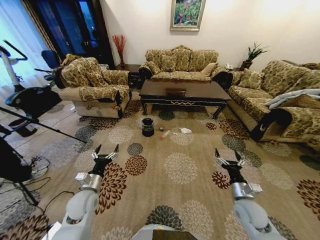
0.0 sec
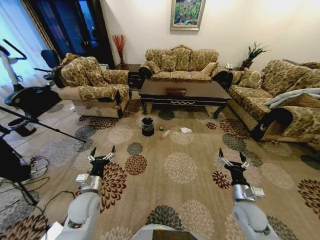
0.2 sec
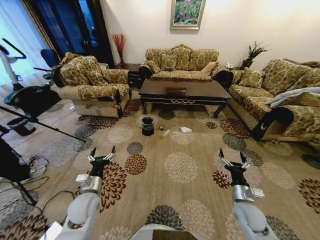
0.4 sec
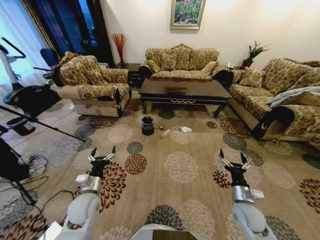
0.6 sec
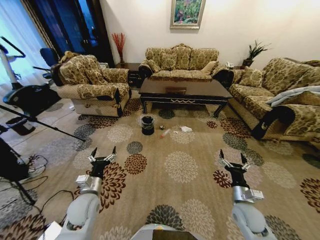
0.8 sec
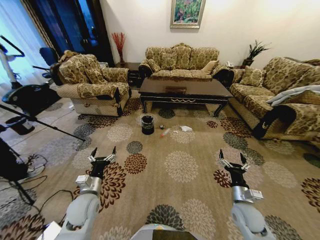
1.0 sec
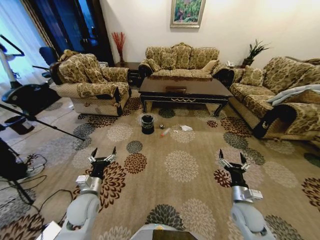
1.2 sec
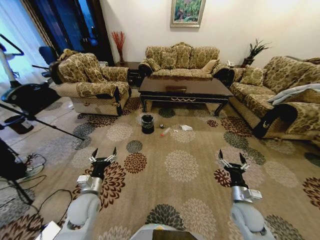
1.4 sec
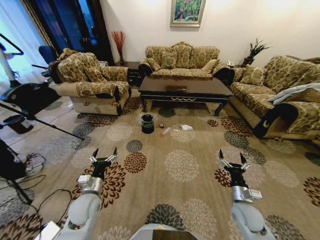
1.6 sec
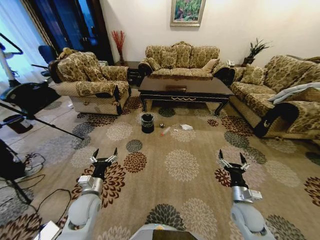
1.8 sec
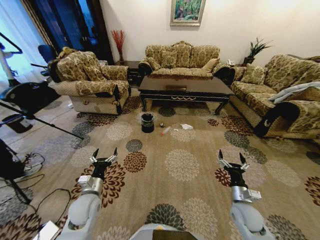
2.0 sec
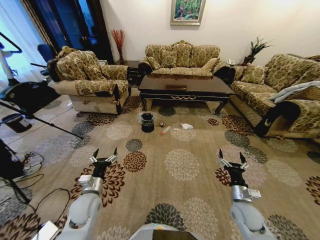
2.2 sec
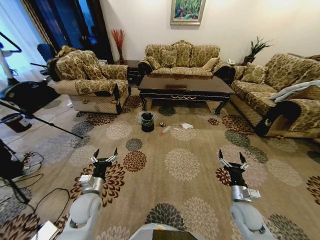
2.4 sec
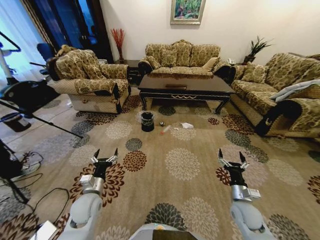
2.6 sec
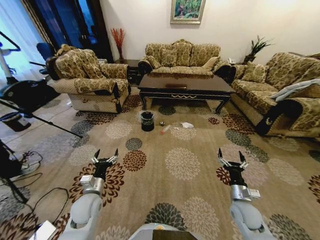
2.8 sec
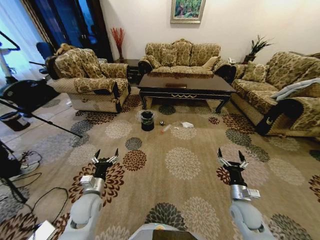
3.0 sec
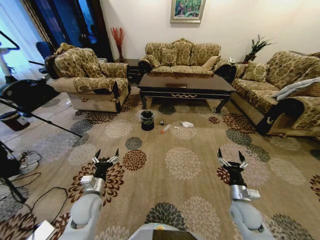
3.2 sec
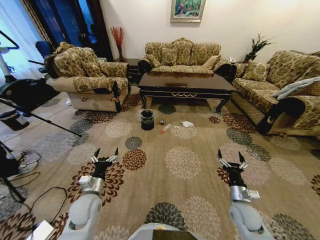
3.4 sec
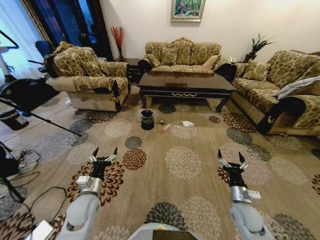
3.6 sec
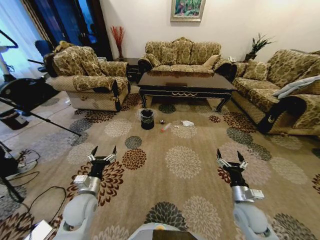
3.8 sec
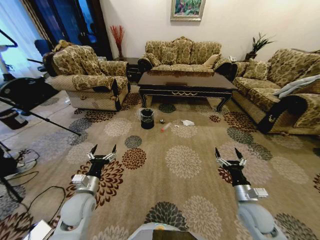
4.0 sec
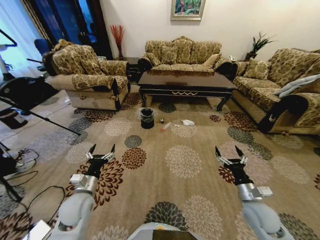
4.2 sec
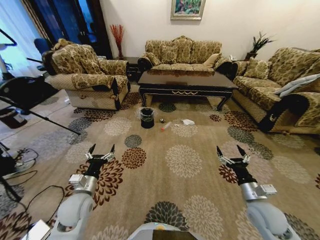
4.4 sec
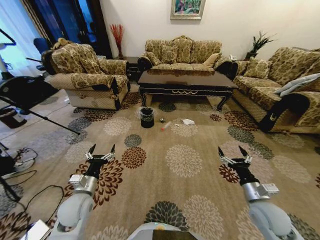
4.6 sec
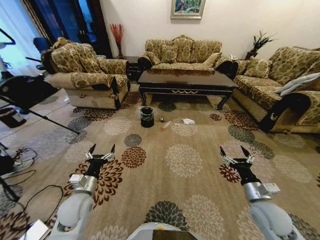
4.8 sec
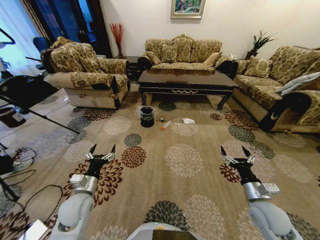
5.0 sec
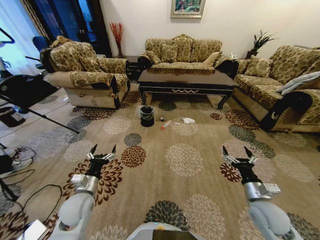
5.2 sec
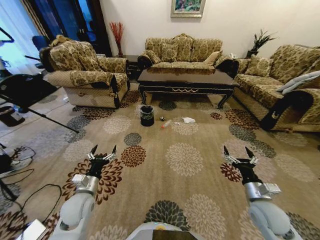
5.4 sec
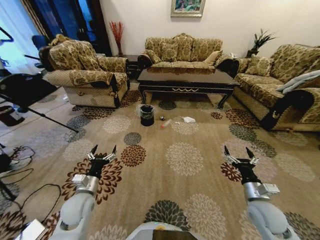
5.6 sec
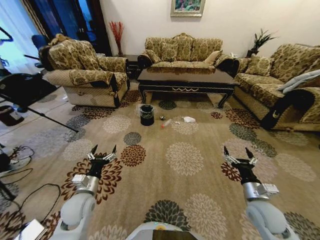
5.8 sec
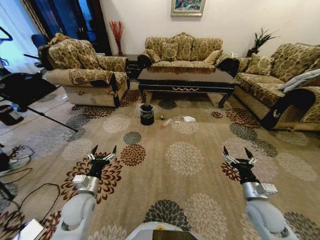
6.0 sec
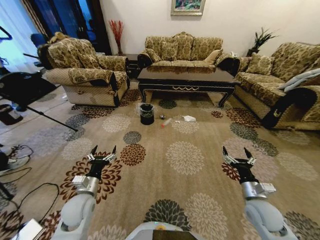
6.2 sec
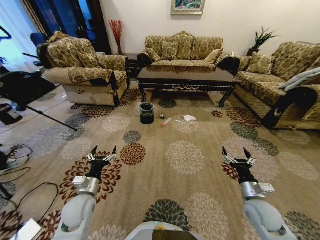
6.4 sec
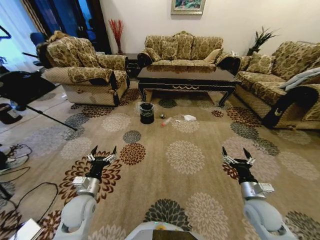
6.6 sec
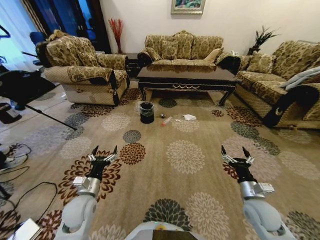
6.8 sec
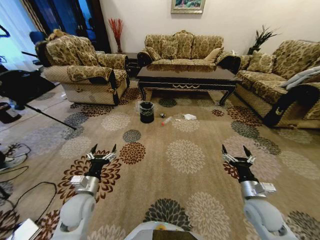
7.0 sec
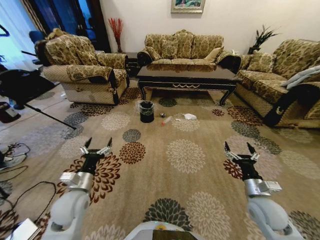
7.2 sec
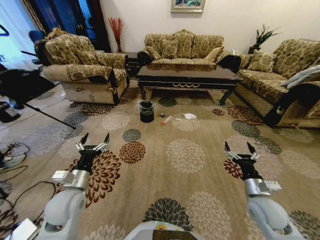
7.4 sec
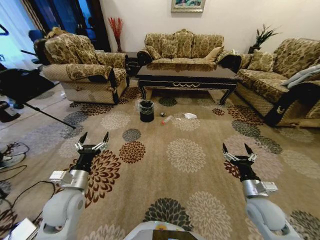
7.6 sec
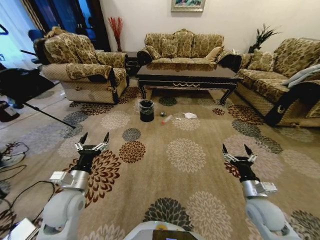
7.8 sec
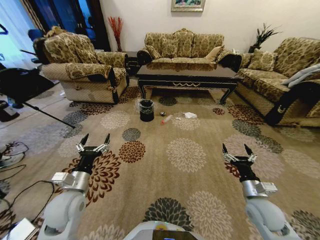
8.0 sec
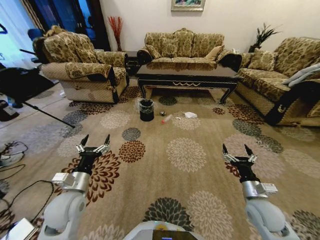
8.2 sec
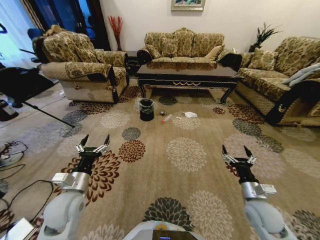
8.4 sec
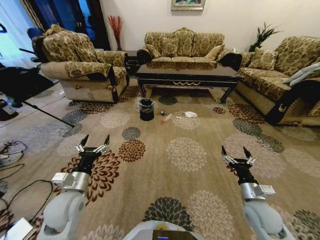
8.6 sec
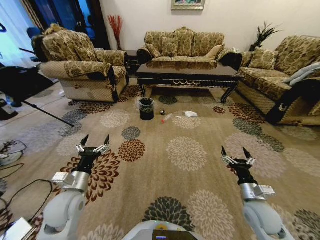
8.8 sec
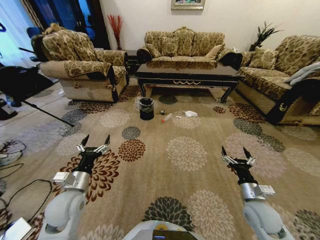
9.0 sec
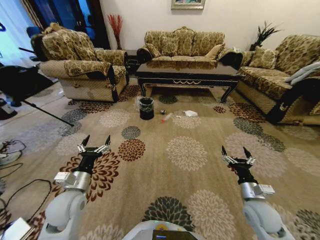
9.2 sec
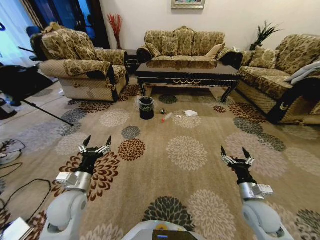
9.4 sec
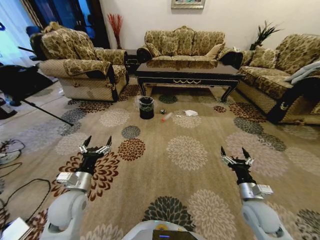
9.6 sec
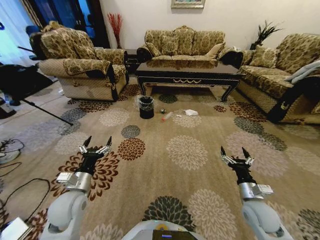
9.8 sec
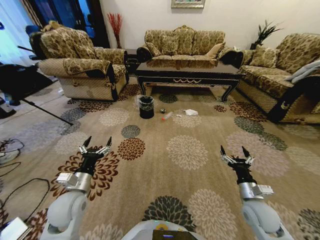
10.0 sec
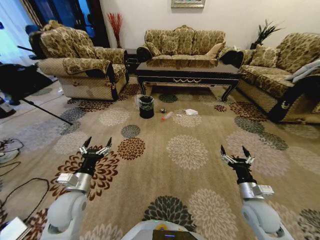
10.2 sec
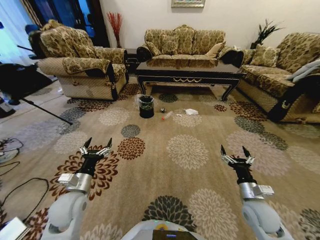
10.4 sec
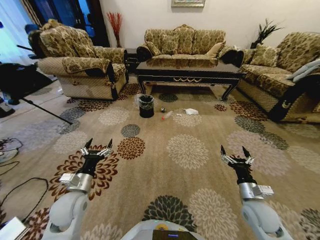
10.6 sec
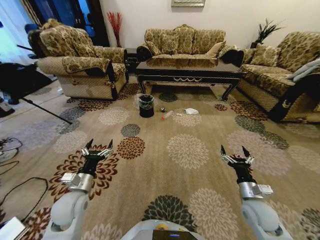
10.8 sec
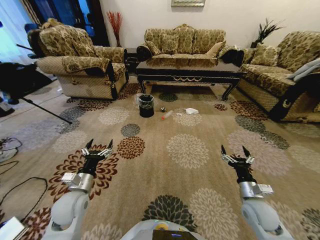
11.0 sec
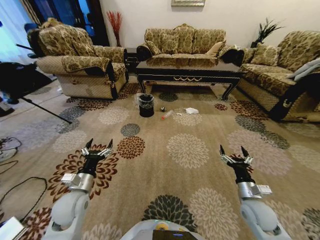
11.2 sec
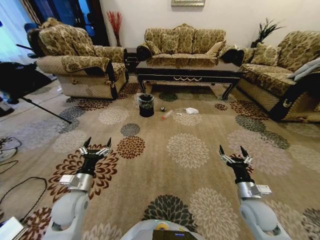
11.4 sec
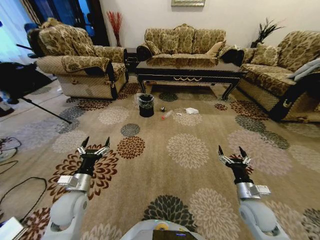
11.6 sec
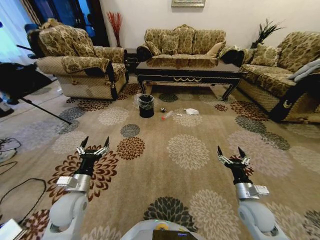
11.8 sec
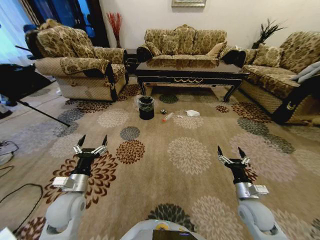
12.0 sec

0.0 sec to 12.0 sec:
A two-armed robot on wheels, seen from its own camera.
Task of the whole recording: Move to the front of the table and pick up the trash from the floor, then place it into the trash bin.
3.0 sec to 4.4 sec: The right gripper travels upward by approximately 5 cm.
6.0 sec to 7.6 sec: The left gripper goes roughly 5 cm upward.
10.4 sec to 12.0 sec: The grippers stay close to where they were, moving slightly.

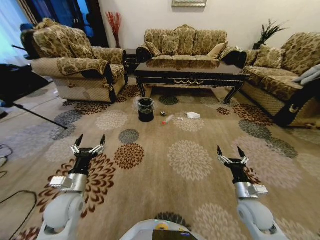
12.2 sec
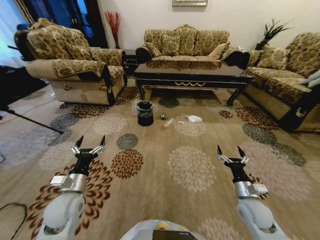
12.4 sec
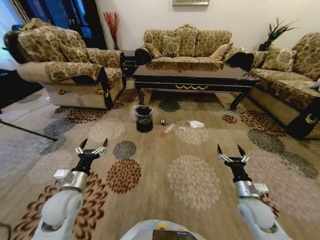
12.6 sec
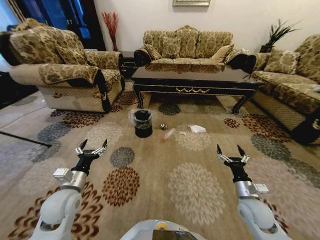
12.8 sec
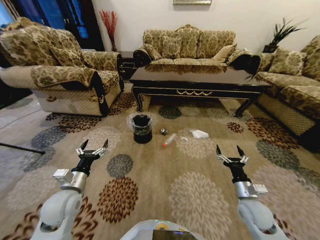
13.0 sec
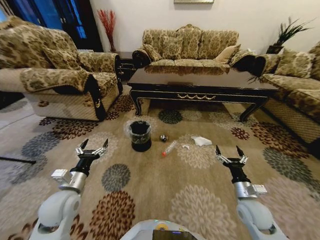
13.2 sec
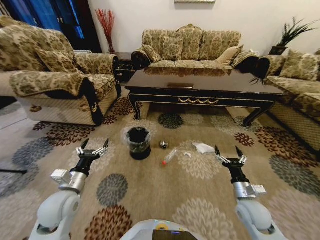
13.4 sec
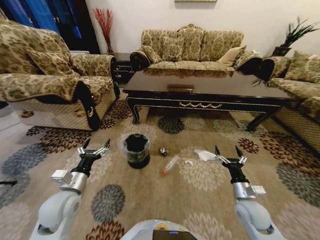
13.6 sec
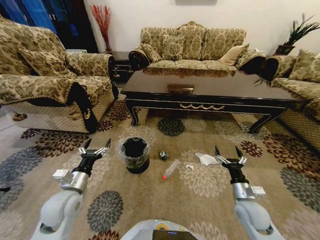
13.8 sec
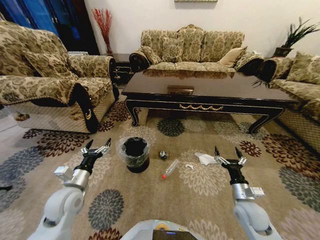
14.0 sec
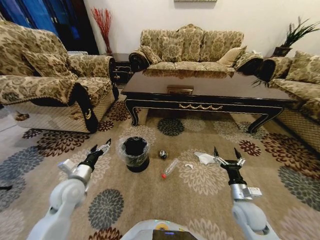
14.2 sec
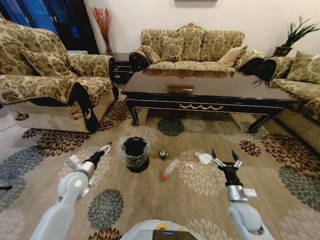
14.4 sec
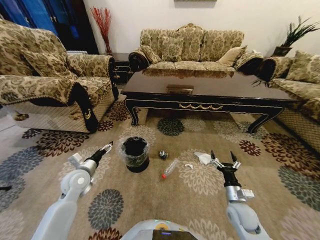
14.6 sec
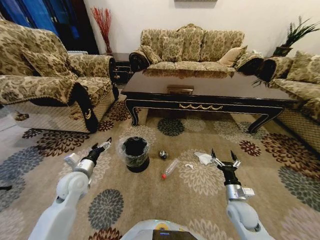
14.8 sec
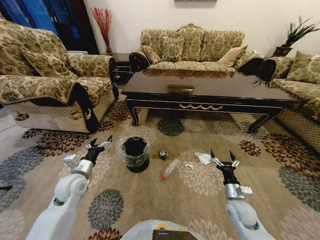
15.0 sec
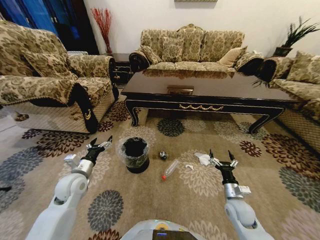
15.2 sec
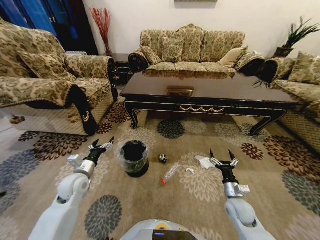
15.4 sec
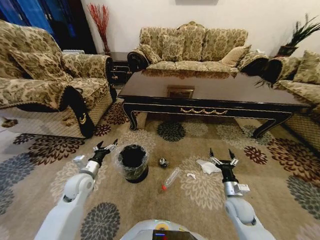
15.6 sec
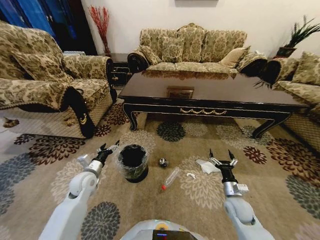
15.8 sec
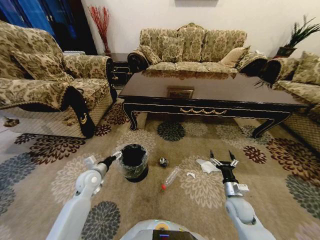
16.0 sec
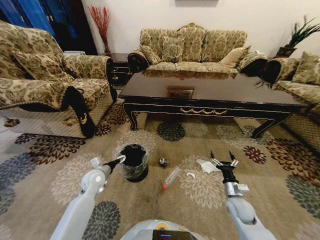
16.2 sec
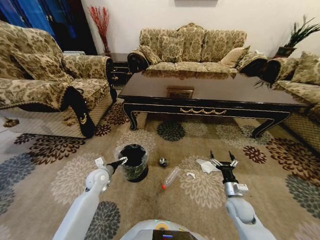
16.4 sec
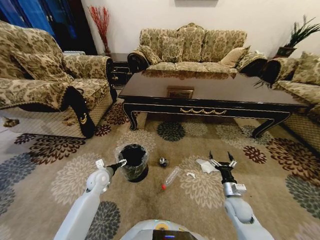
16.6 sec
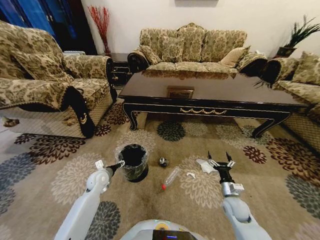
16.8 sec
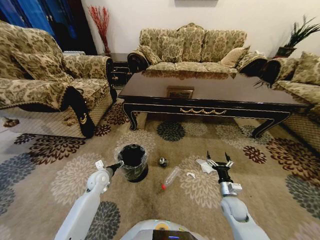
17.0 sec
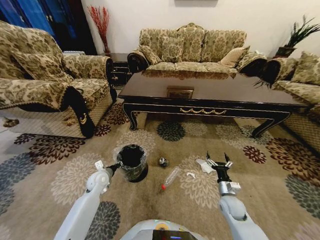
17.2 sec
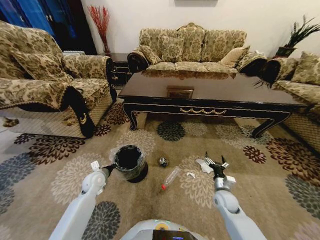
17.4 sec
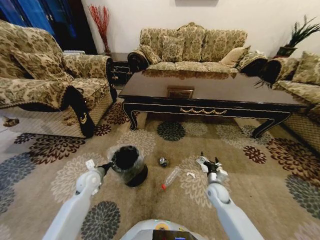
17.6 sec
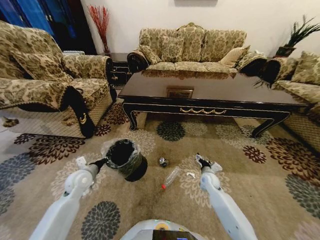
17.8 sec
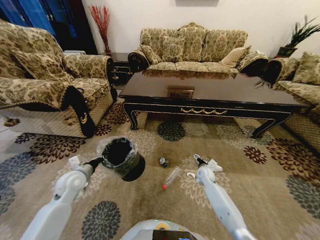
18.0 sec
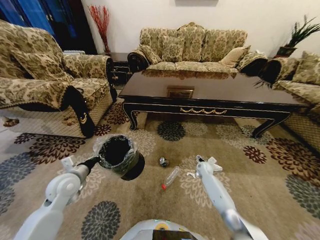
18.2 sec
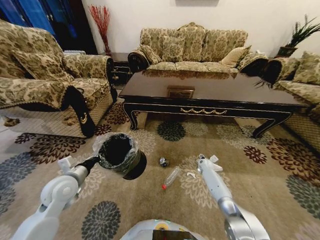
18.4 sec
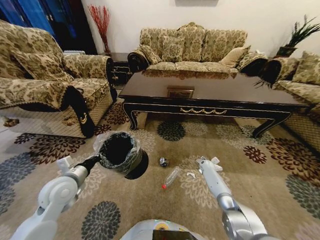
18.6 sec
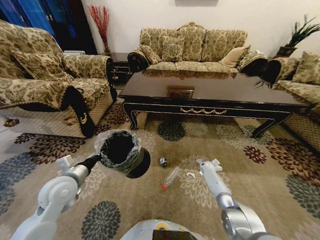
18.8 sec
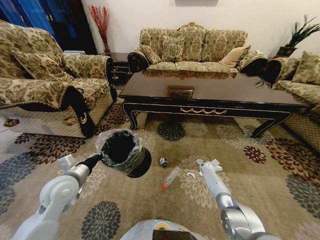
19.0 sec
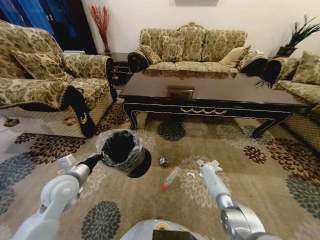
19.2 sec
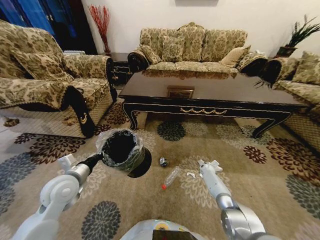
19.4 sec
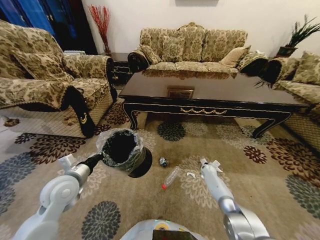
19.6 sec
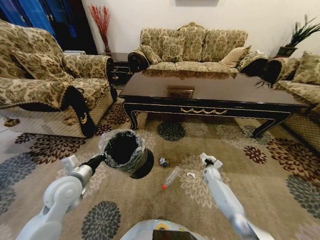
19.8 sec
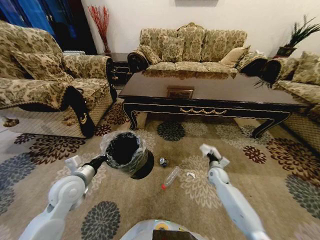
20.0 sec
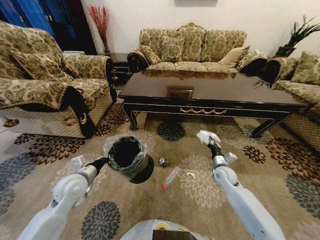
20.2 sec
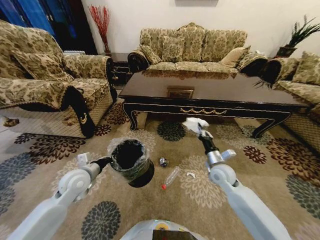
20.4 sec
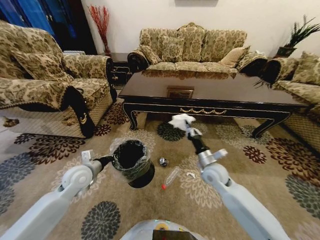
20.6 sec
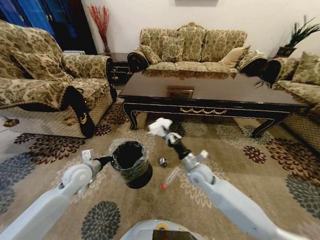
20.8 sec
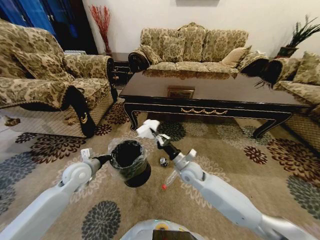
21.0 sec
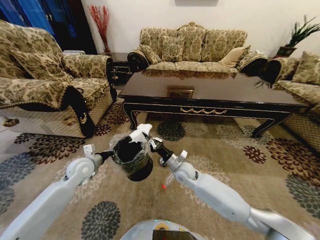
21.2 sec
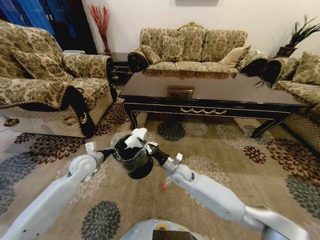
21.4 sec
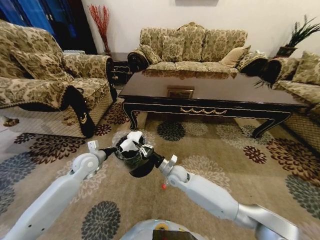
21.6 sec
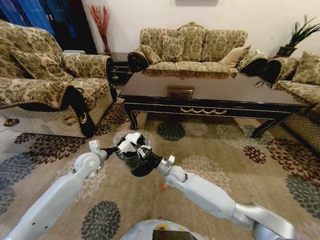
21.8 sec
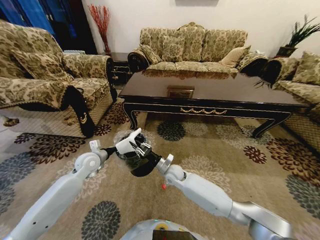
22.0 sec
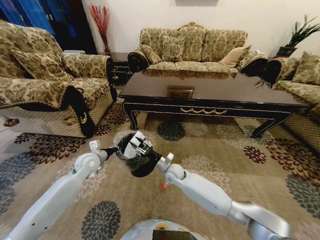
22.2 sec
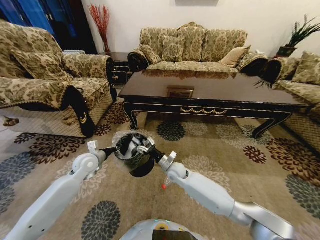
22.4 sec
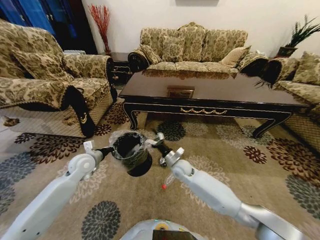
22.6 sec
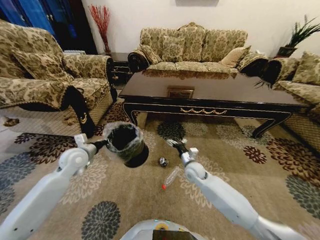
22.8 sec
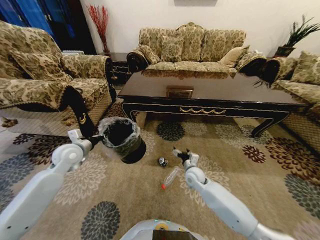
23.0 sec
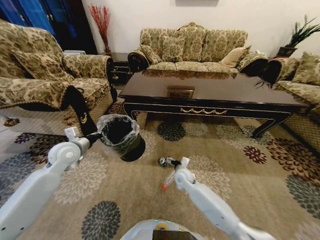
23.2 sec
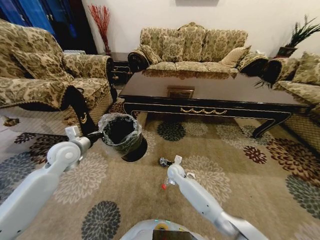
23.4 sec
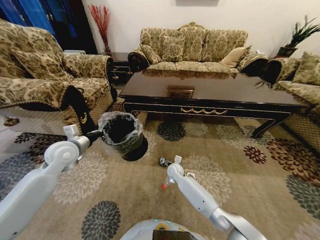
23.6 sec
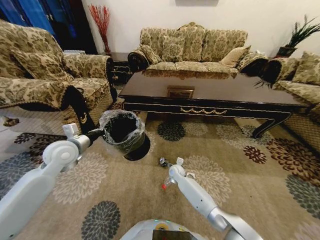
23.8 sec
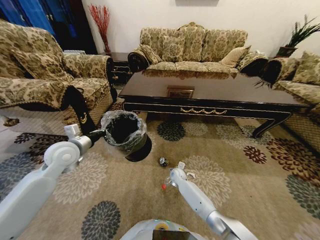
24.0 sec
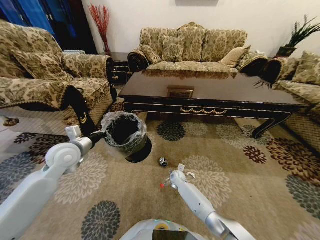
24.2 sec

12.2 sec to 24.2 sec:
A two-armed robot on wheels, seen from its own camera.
Task of the whole recording: Move to the front of the table and pick up the trash from the floor, then place it into the trash bin.
13.8 sec to 15.2 sec: The left gripper goes about 5 cm forward, while the right gripper ends up some 5 cm from where it was.
15.2 sec to 16.6 sec: The left gripper travels downward and forward by roughly 10 cm.
16.6 sec to 18.2 sec: The left gripper is displaced upward, backward and to the left by about 15 cm, and closes its fingers; the right gripper is displaced forward by roughly 20 cm.
18.2 sec to 19.8 sec: The right gripper travels to the right by some 5 cm, and closes. The left gripper changes place by about 5 cm.
19.8 sec to 21.2 sec: The right gripper moves to the left and upward, about 30 cm. Meanwhile the left gripper shifts roughly 10 cm forward.
21.2 sec to 22.6 sec: The right gripper opens up.
22.6 sec to 24.2 sec: The right gripper travels downward by some 15 cm; the left gripper heads upward, covering some 10 cm.
